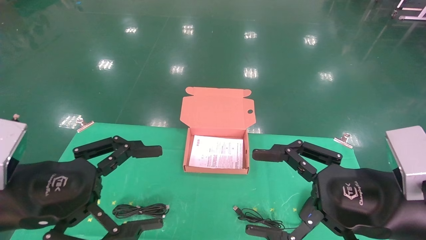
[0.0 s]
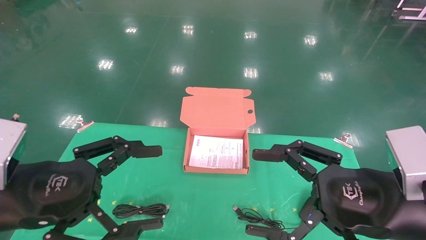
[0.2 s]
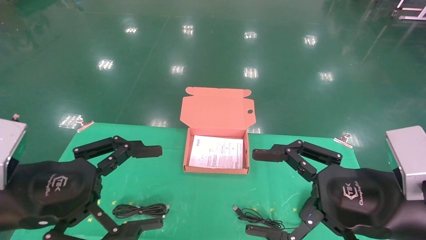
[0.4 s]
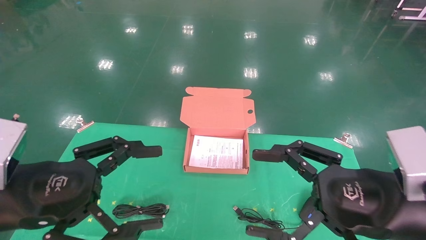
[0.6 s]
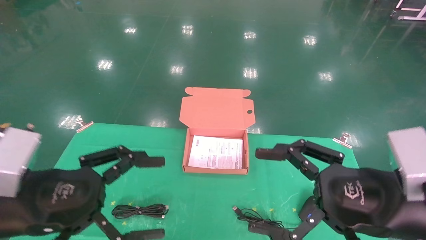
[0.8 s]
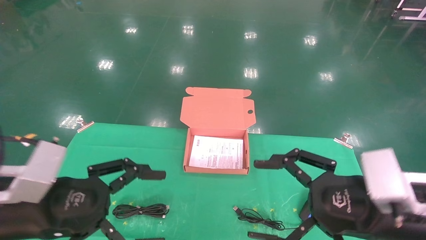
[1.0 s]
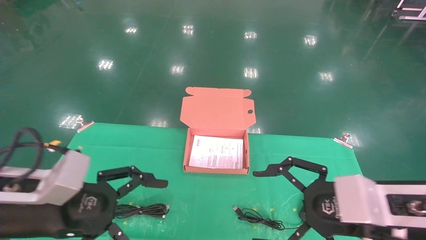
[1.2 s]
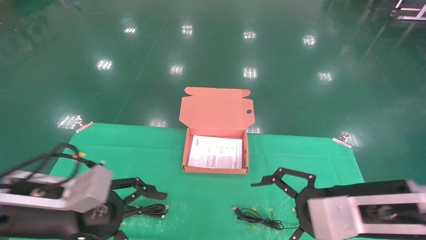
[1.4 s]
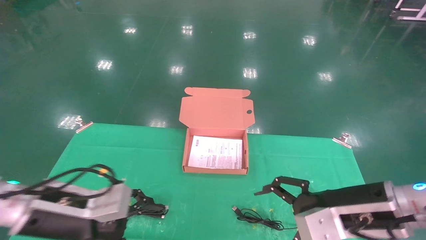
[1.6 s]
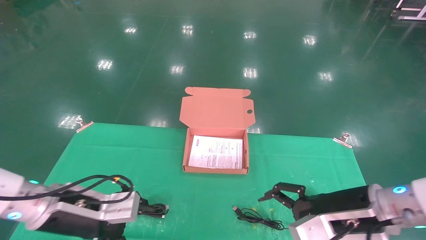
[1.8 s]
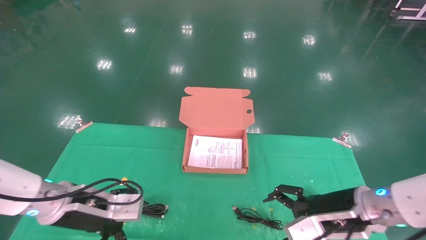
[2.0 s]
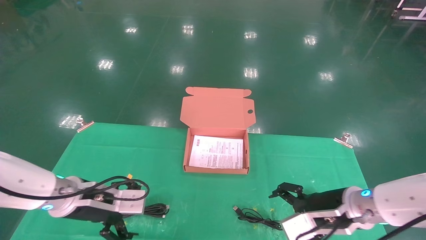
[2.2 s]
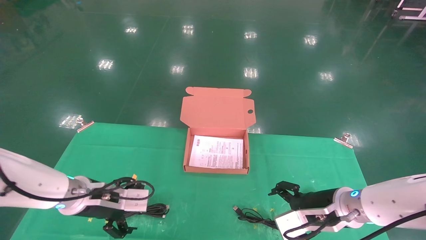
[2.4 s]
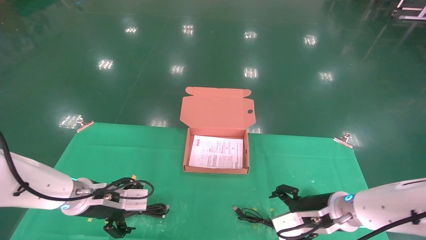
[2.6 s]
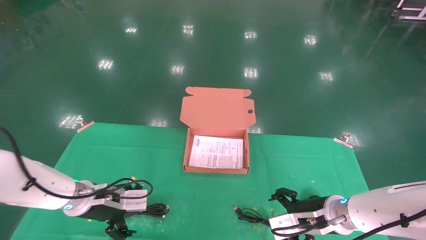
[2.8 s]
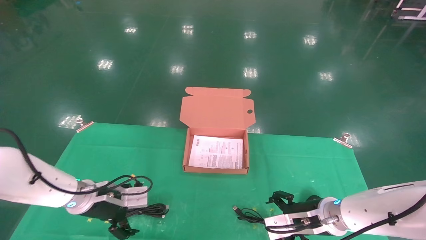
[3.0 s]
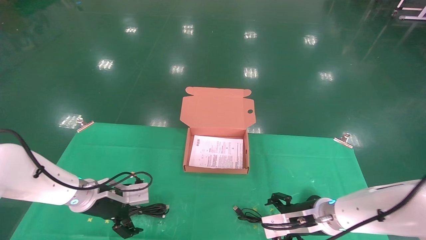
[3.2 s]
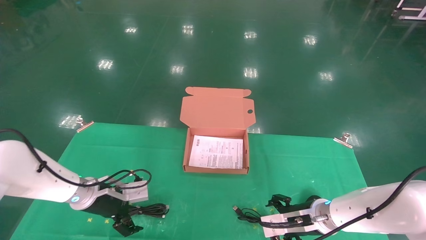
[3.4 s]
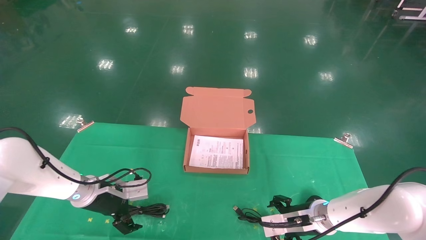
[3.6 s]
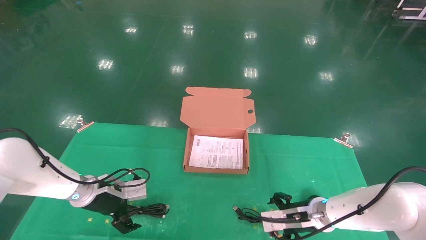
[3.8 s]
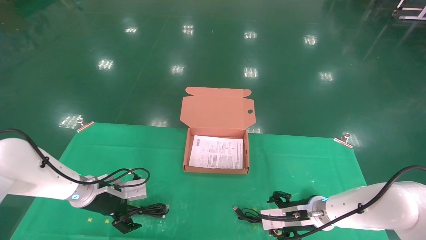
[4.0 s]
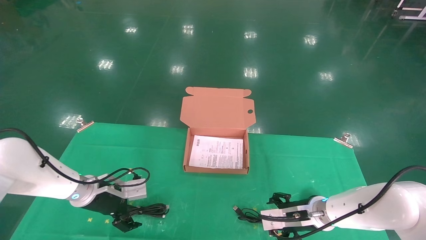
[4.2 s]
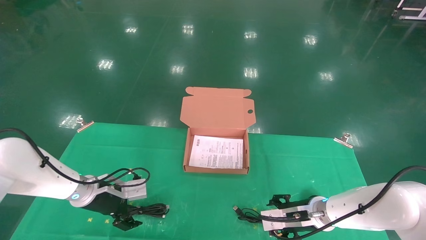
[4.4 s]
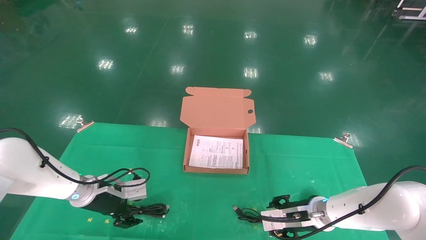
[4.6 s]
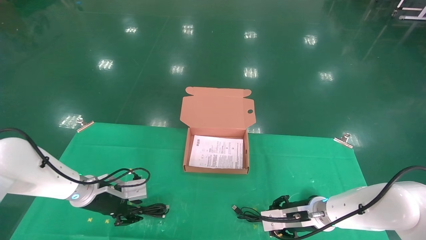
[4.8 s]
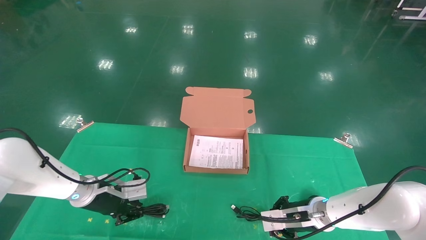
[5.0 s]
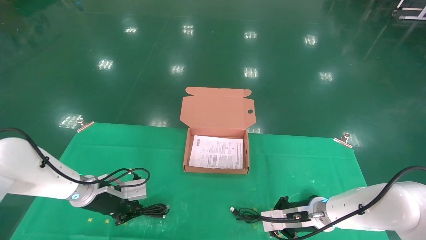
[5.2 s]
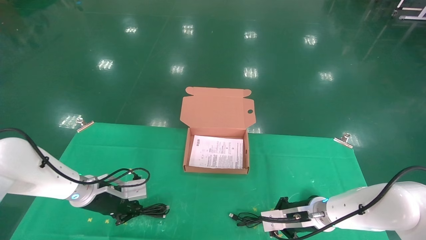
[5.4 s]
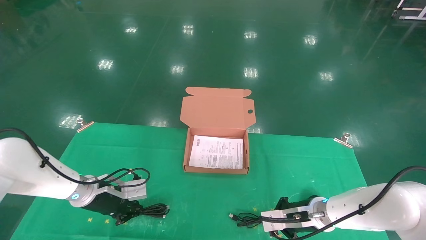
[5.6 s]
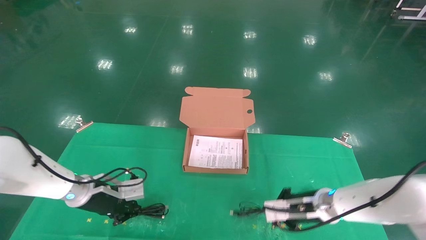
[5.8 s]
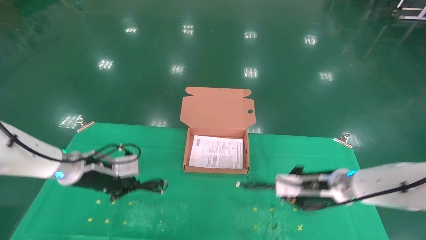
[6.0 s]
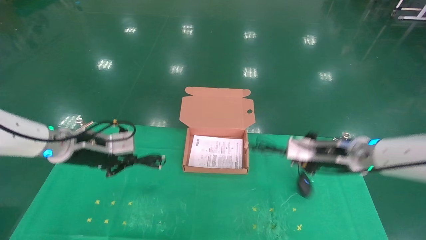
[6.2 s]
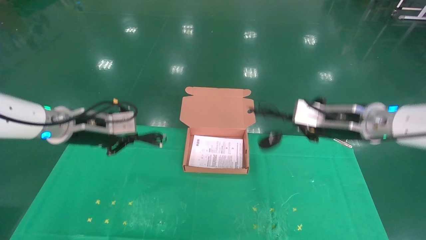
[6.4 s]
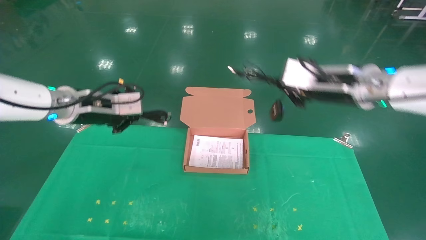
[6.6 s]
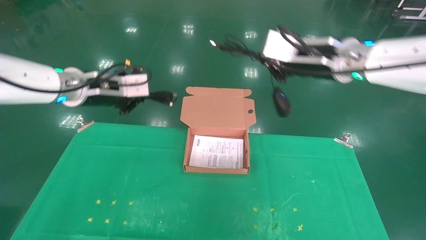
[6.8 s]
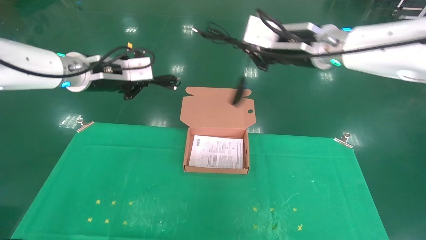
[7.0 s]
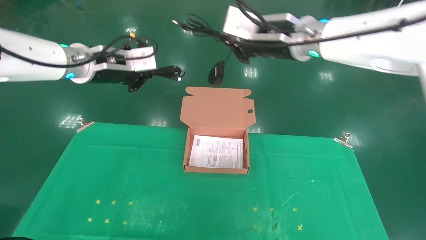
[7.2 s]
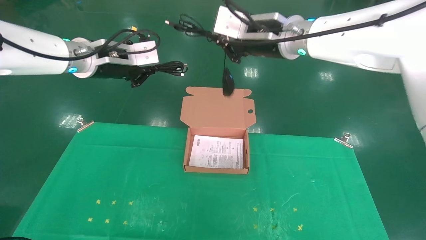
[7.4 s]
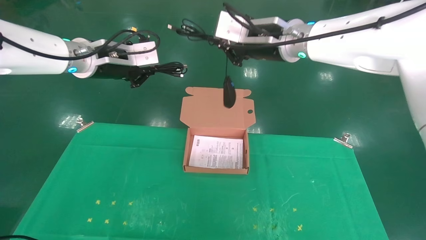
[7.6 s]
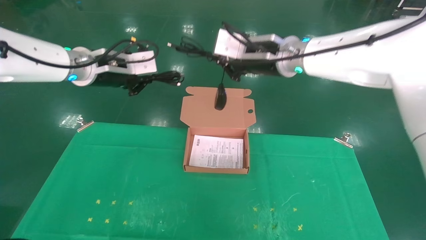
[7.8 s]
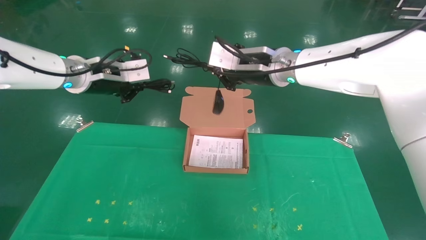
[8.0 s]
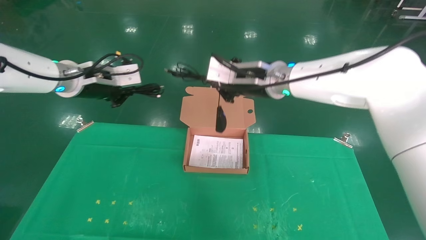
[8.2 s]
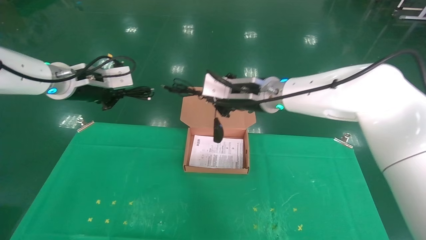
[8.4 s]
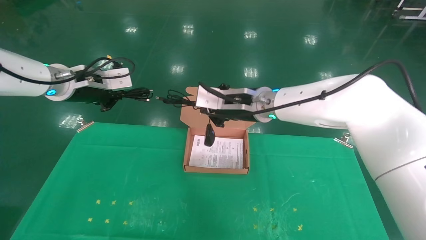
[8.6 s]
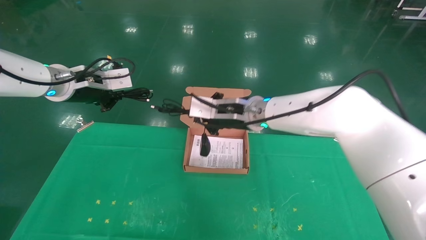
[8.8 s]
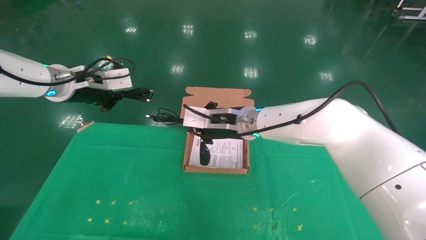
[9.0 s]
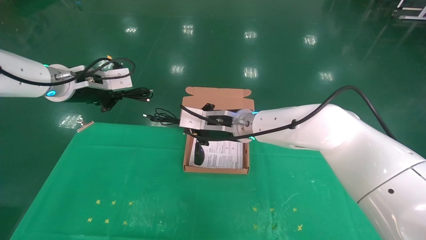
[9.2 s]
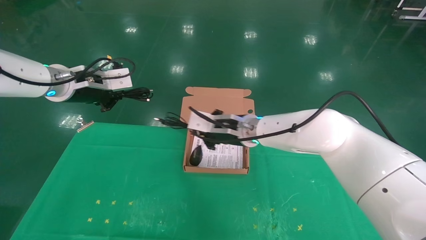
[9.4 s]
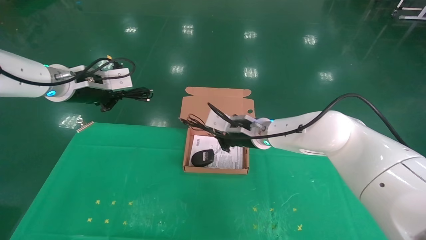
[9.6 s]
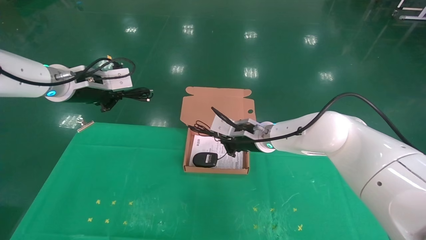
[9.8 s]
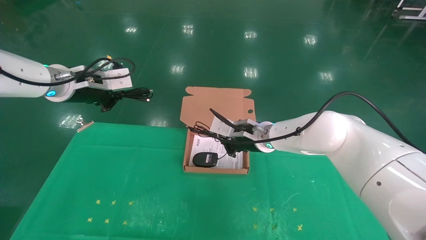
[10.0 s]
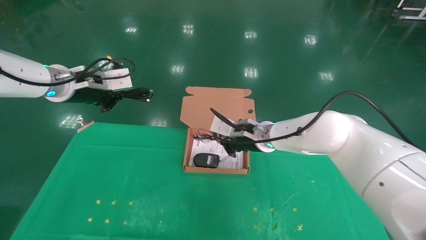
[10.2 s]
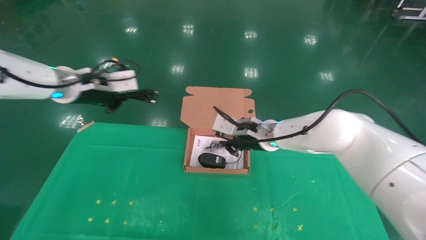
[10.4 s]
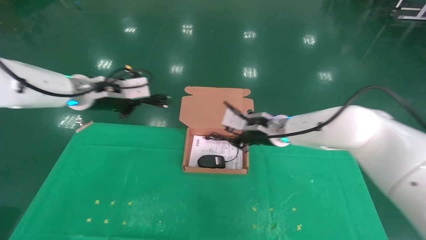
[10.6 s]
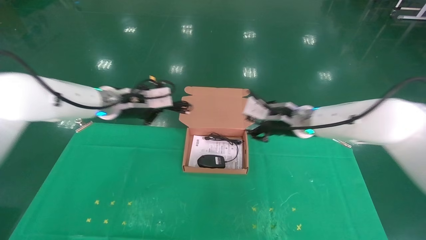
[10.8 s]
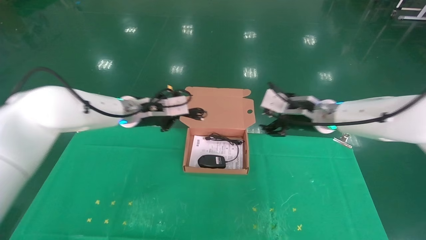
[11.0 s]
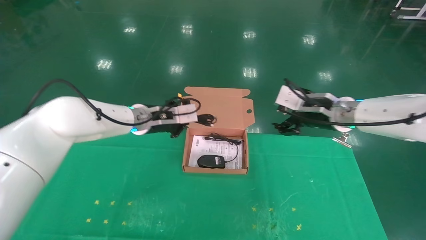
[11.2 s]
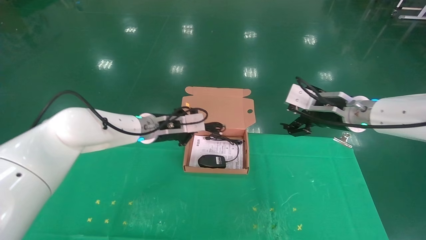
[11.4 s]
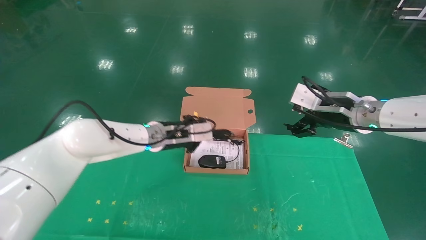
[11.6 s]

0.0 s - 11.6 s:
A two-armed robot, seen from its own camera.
Task of the whole recording: grasp data cable left put into box grasp mouse right put into box.
Step, 0.6 s - 6.2 s: Grab and pick up both the mouse and power cord from the accessory packaging area at the same time.
0.0 s - 1.4 s: The left gripper heads forward and downward, covering approximately 10 cm. Meanwhile the right gripper travels forward by approximately 5 cm.
1.4 s - 2.8 s: The two grippers go some 15 cm forward and downward.
2.8 s - 4.4 s: The two grippers go approximately 5 cm forward.
4.4 s - 5.8 s: The right gripper closes, while the left gripper closes its fingers.
5.8 s - 7.2 s: The grippers both shift upward by roughly 30 cm.
7.2 s - 8.8 s: The left gripper goes approximately 5 cm to the left; the right gripper heads downward and to the left, covering some 15 cm.
8.8 s - 10.2 s: The right gripper moves downward, about 5 cm.
10.2 s - 11.6 s: The right gripper is displaced to the right, upward and backward by approximately 20 cm, and opens up. Meanwhile the left gripper shifts some 20 cm to the right and downward.

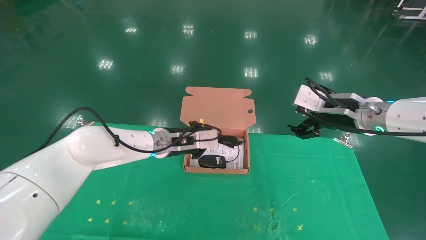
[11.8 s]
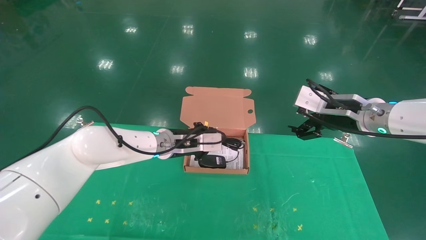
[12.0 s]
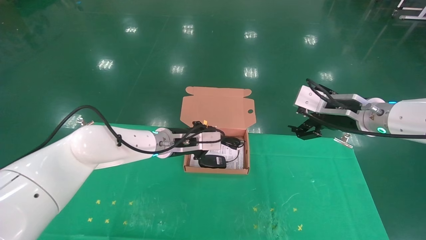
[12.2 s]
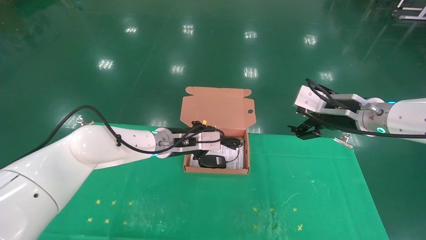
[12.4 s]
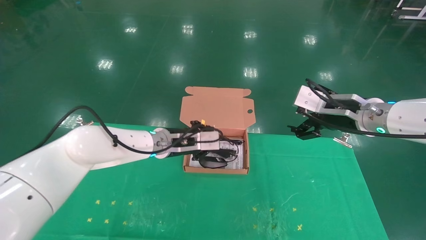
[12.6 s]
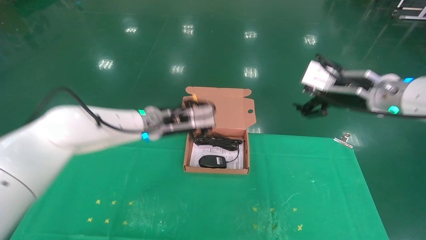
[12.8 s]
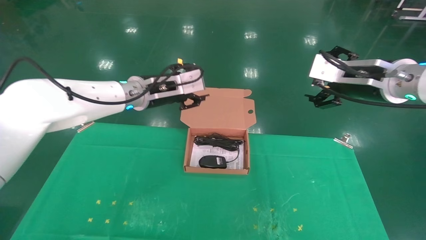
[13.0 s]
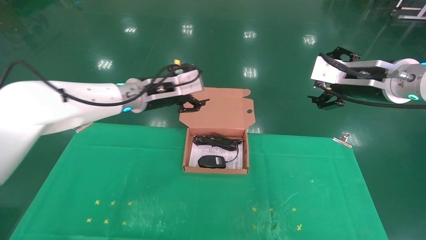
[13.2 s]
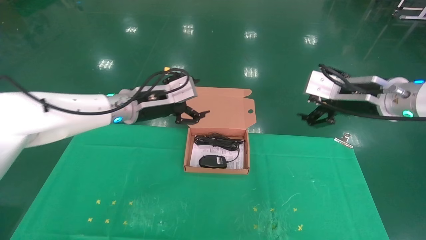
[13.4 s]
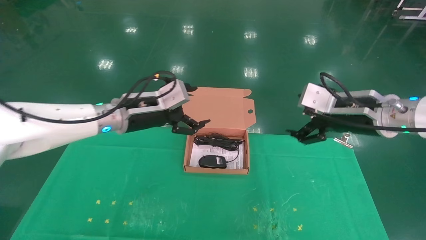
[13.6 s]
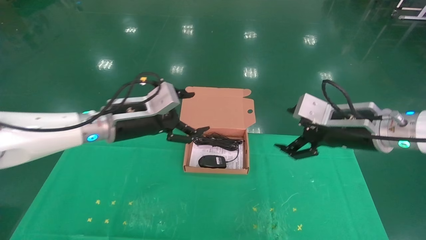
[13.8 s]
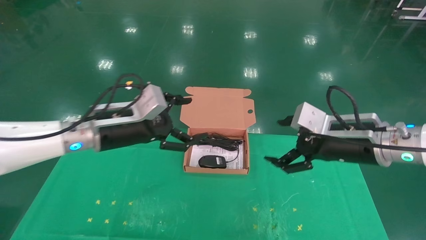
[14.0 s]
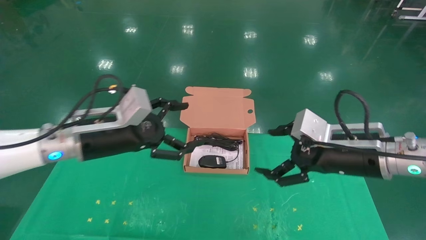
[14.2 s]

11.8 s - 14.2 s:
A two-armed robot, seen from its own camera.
Task of the whole recording: grasp data cable left put into box grasp mouse right put into box.
11.8 s - 13.0 s: The right gripper moves upward, approximately 5 cm; the left gripper goes about 10 cm upward, and opens up.
13.0 s - 14.2 s: The right gripper is displaced downward and backward by approximately 10 cm. Meanwhile the left gripper shifts roughly 15 cm backward and to the left, and opens its fingers.
